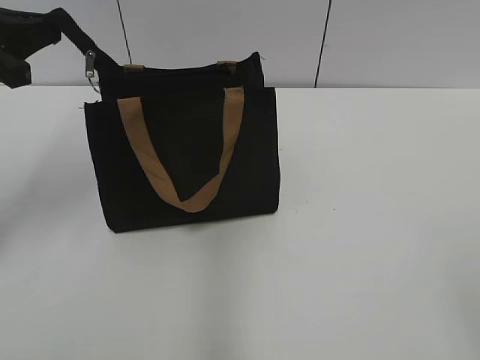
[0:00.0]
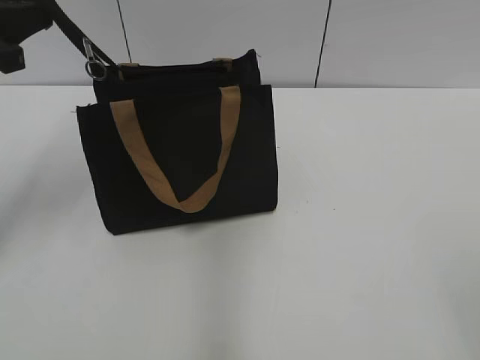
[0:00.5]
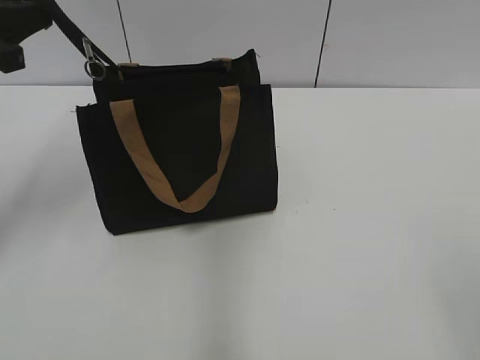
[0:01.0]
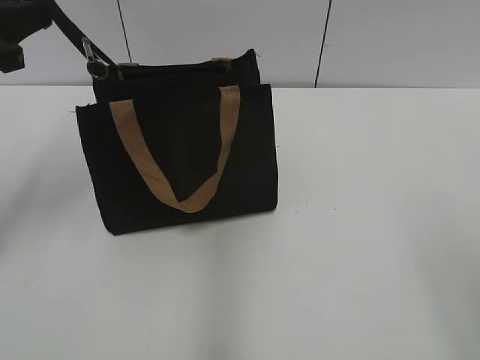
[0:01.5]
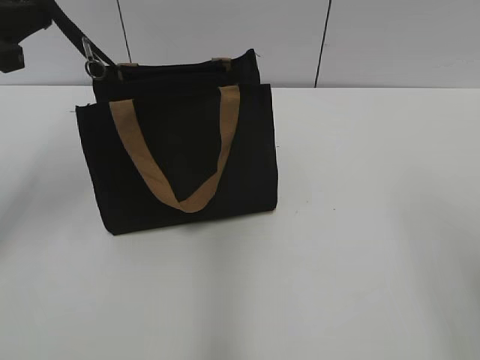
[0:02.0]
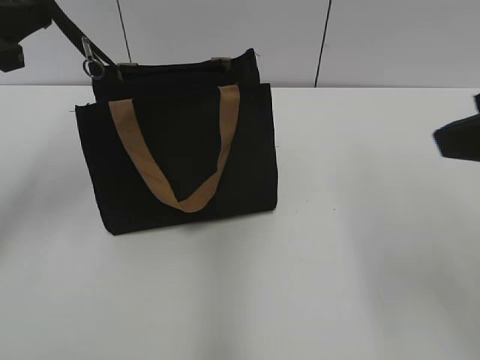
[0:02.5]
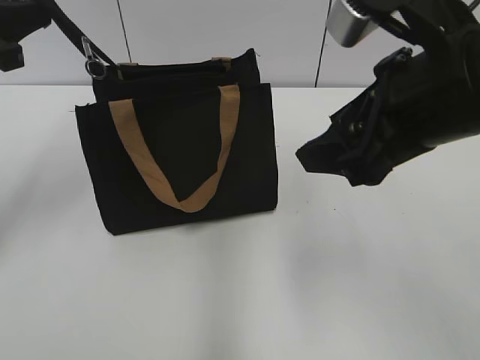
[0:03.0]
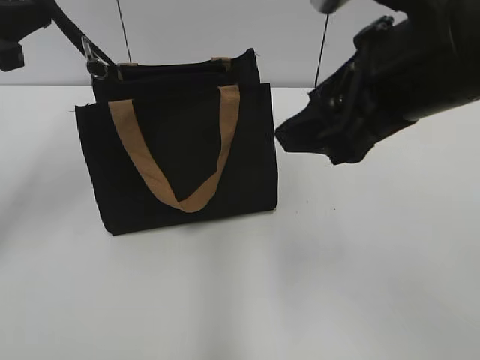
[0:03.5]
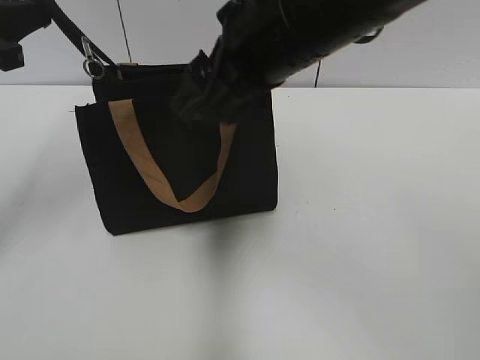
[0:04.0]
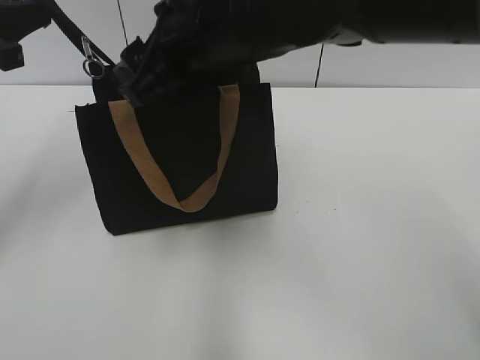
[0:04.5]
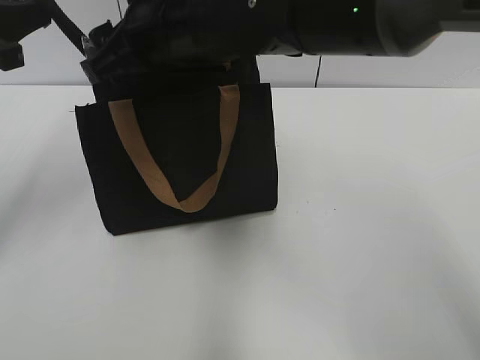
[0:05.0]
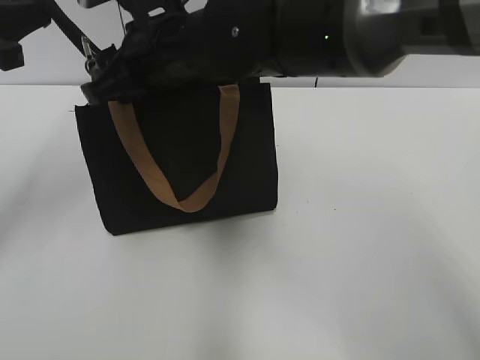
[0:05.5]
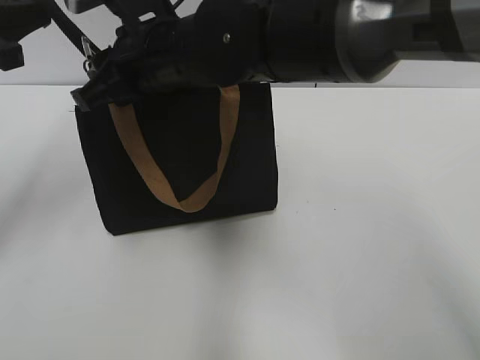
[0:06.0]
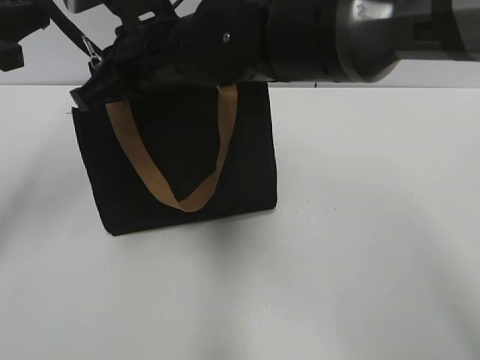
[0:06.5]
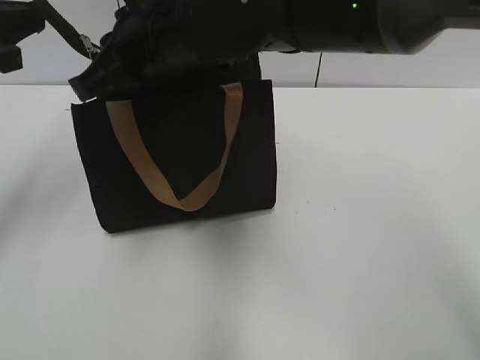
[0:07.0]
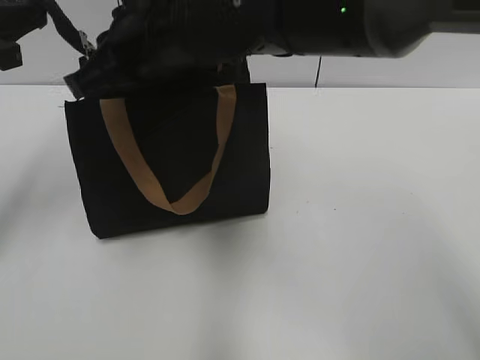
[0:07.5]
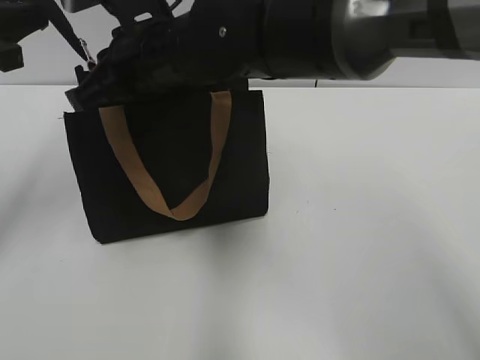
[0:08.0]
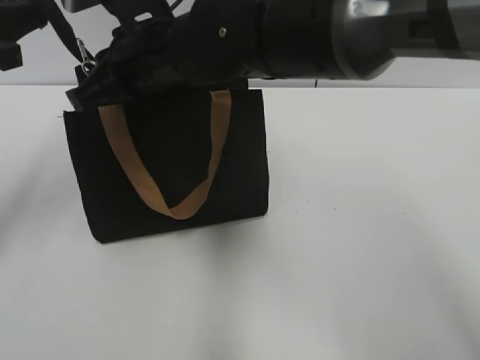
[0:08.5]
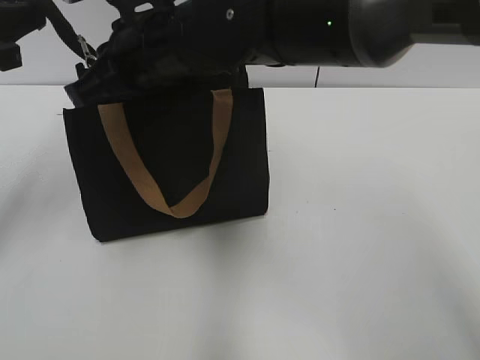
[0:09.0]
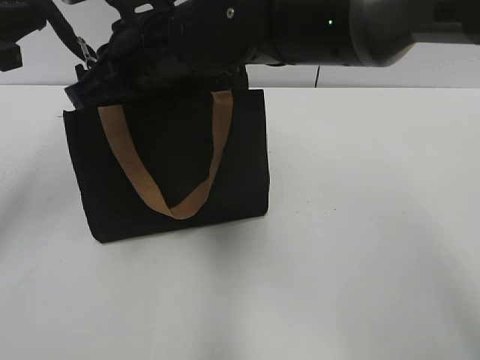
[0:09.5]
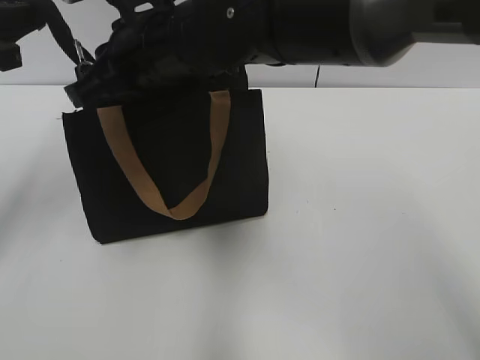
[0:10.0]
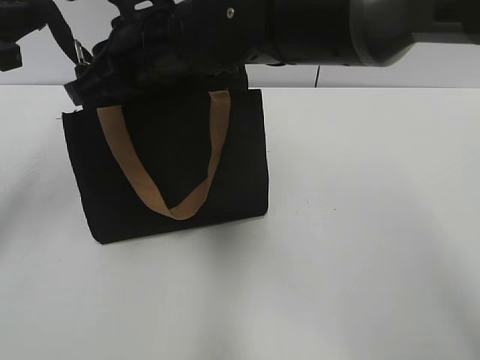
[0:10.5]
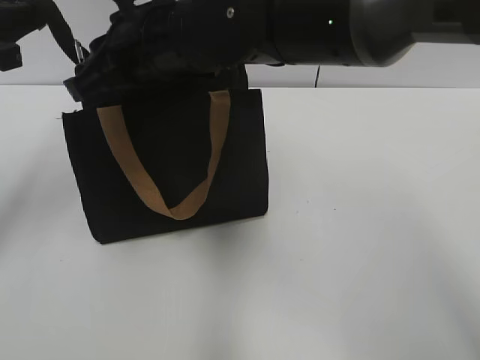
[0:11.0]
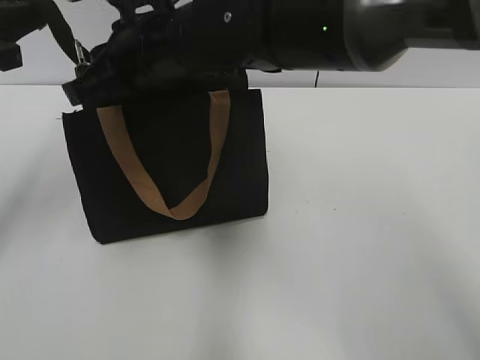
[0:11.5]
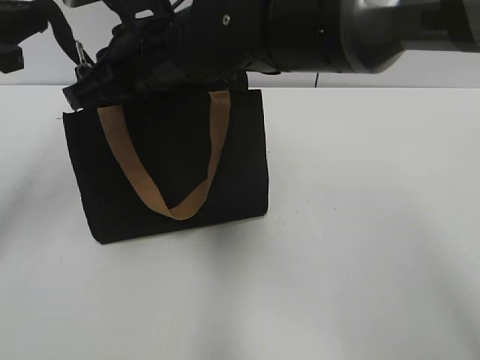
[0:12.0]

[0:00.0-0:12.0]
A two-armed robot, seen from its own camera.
0:00.0 to 0:02.0: The right gripper moves forward and upward, approximately 10 cm.
0:02.0 to 0:04.0: The right gripper goes approximately 30 cm to the left and forward.
0:04.0 to 0:06.0: The right gripper goes roughly 15 cm to the left, forward and downward, and closes.
0:06.0 to 0:08.0: The right gripper closes up.
0:08.0 to 0:10.0: Both grippers stay about where they are.
0:10.0 to 0:12.0: The two grippers keep their place.

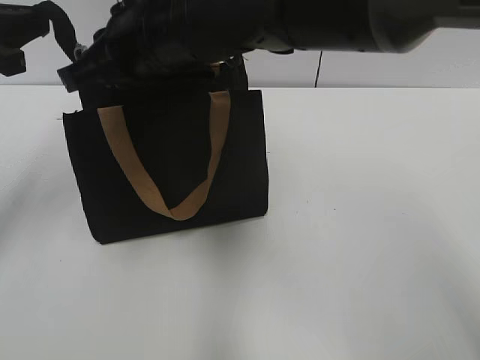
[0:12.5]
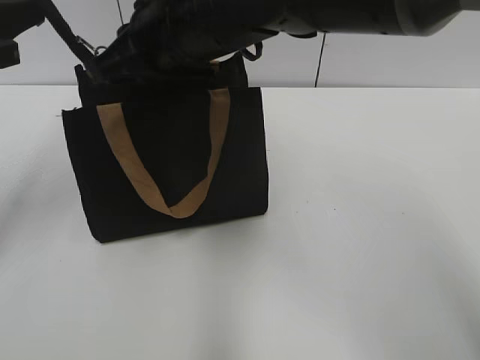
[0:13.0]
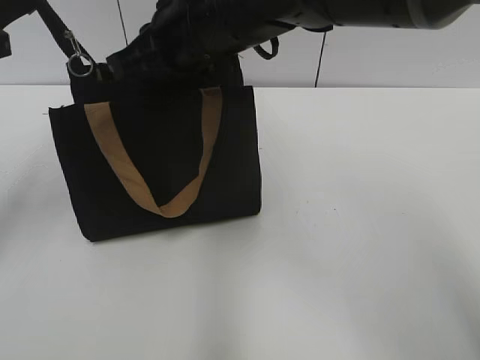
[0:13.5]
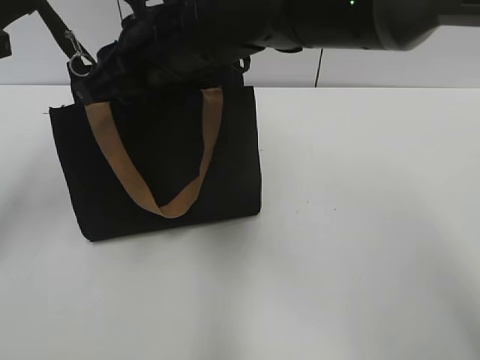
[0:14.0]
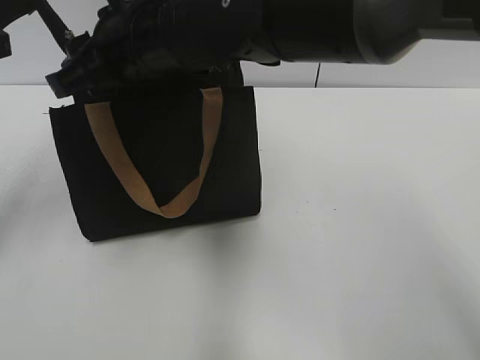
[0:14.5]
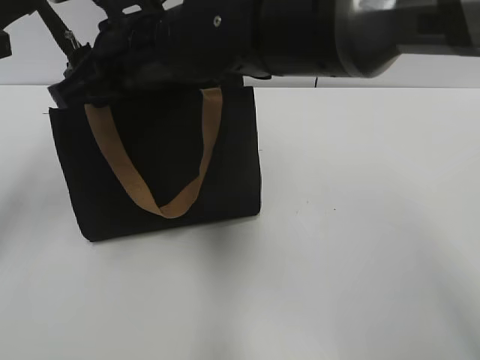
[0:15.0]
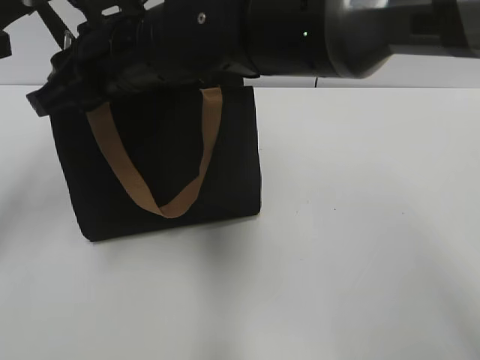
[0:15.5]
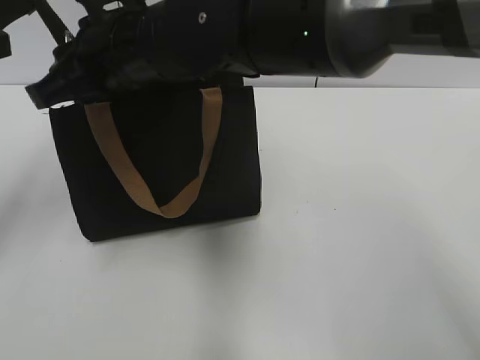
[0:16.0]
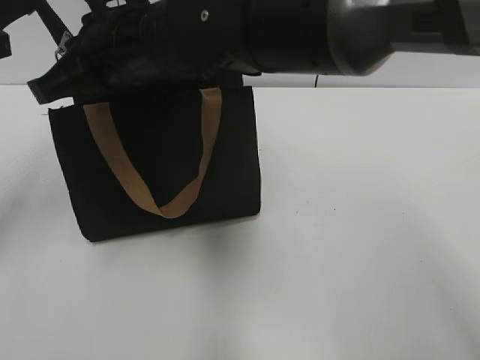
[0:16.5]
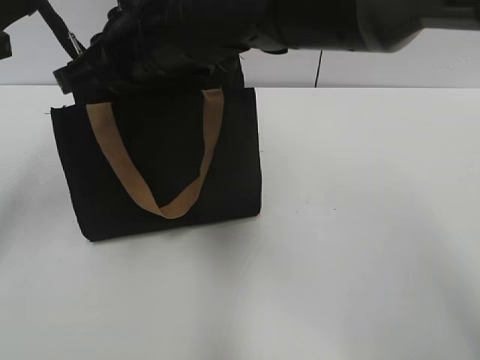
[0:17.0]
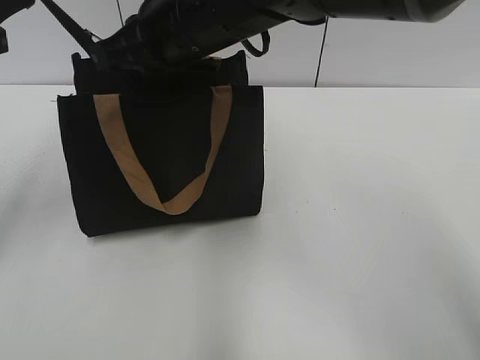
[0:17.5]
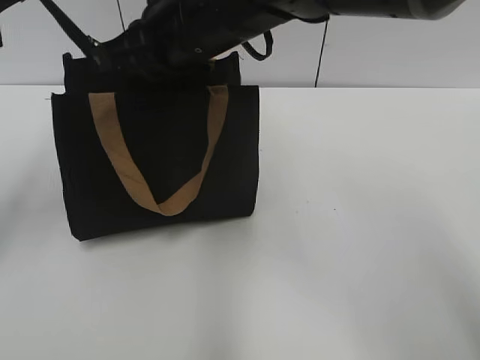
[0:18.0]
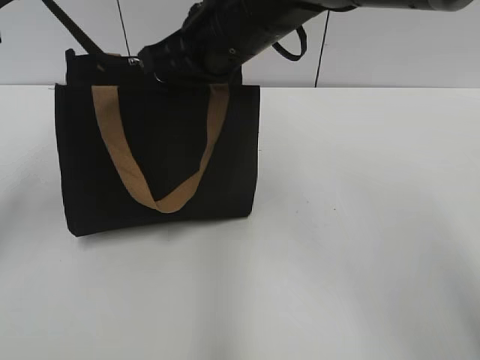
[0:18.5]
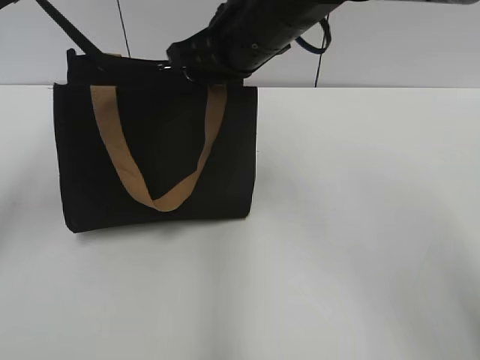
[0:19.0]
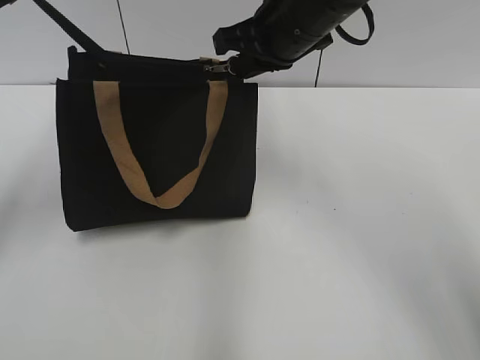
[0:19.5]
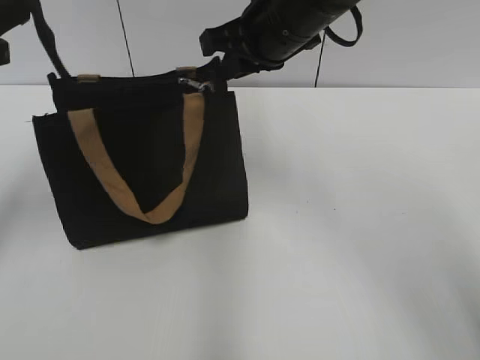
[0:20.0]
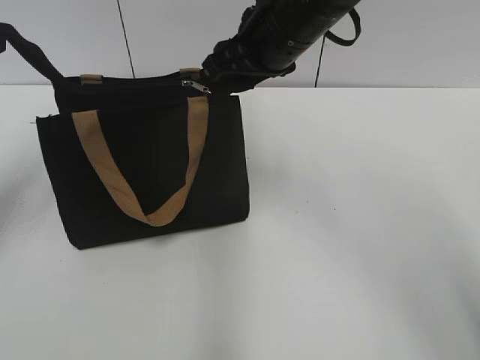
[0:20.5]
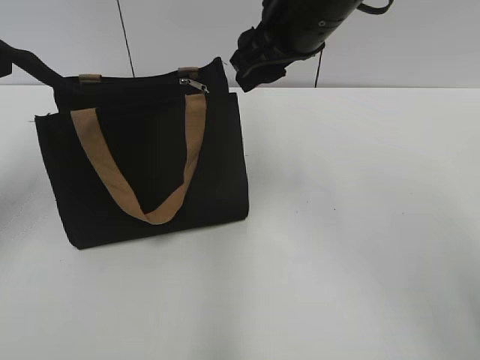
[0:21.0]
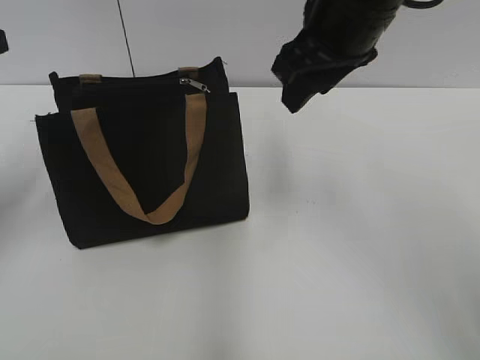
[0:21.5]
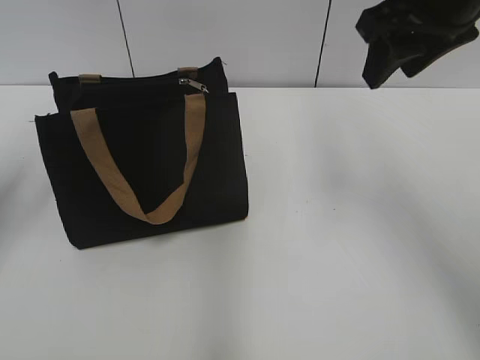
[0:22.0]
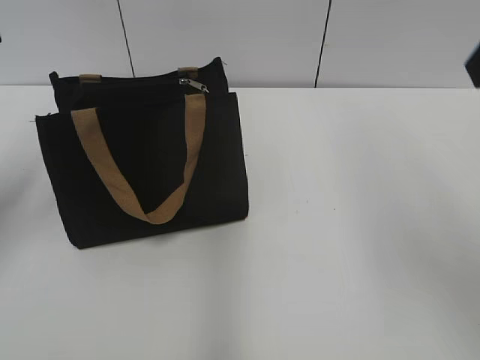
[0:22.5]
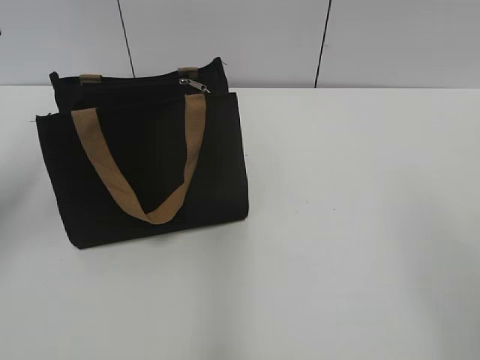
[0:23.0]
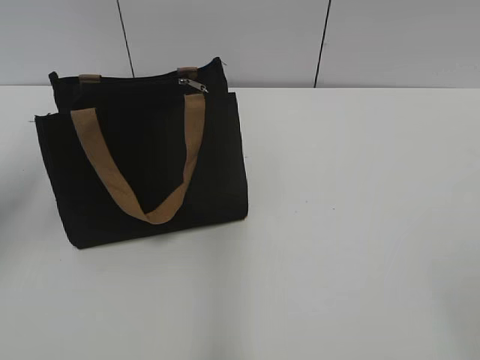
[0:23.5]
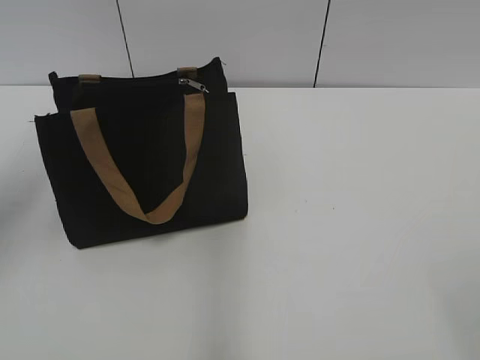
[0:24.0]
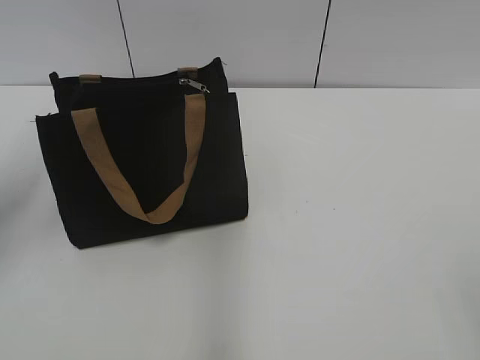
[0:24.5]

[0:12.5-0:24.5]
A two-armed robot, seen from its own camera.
Step, 0:12.5 to 0:20.5: Zip up the bag with your right hand.
0:12.5 to 0:14.5: The right gripper opens up.
0:14.5 to 0:16.5: The right gripper closes its fingers.
0:16.5 to 0:18.5: The right gripper is displaced to the right by some 10 cm.
0:18.5 to 0:20.5: The left gripper opens its fingers. The right gripper opens its fingers.
0:20.5 to 0:22.5: The right gripper heads to the right, backward and upward, covering approximately 25 cm.

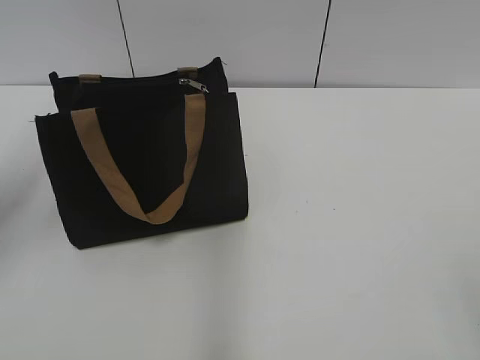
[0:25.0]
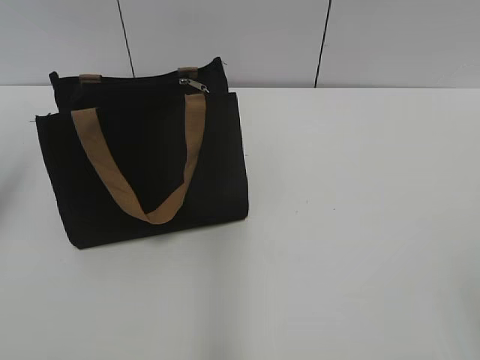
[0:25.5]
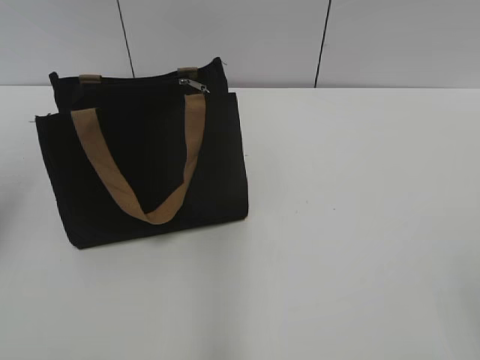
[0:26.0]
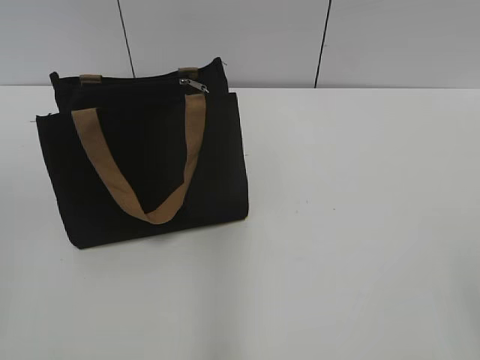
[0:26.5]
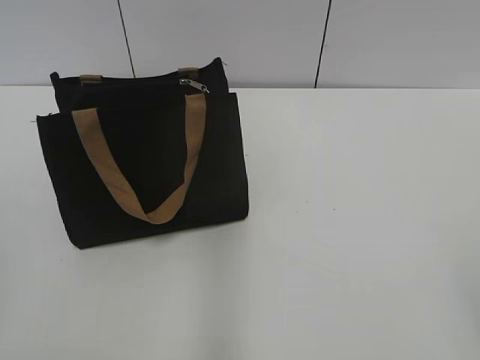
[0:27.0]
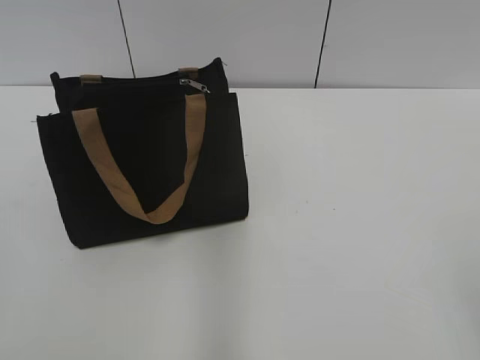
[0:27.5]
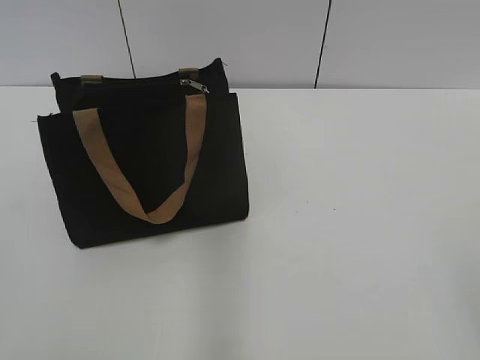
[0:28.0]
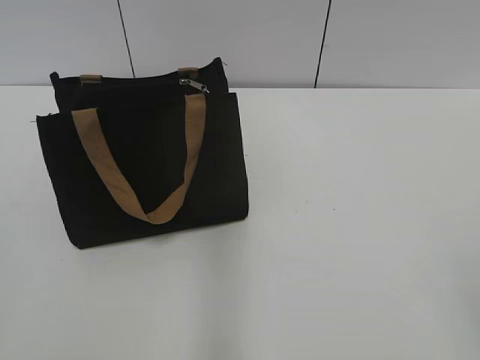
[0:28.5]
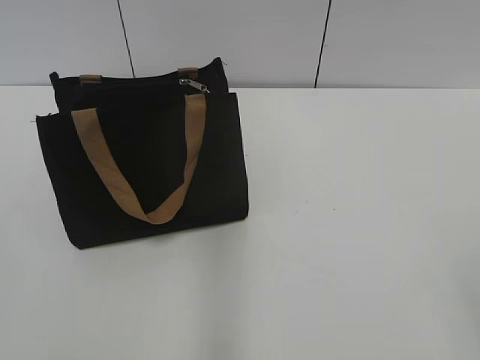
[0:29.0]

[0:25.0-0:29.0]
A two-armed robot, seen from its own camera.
0:25.0 to 0:27.0: The left gripper is displaced backward by some 20 cm.
